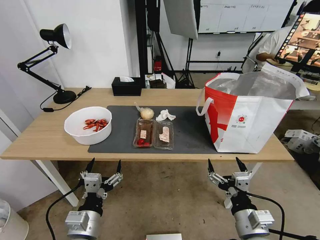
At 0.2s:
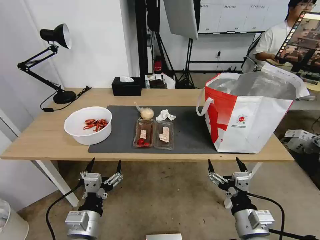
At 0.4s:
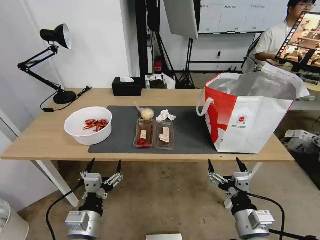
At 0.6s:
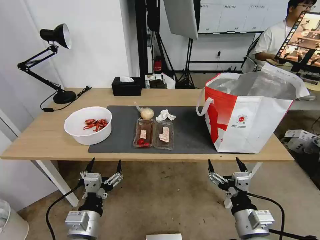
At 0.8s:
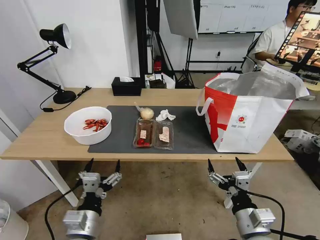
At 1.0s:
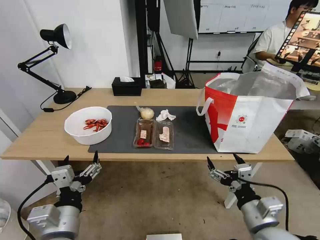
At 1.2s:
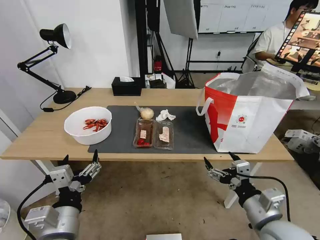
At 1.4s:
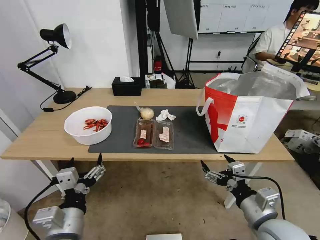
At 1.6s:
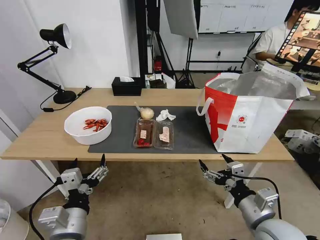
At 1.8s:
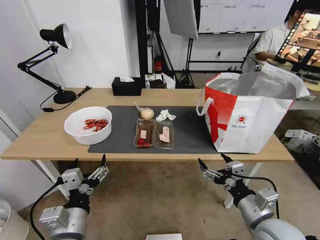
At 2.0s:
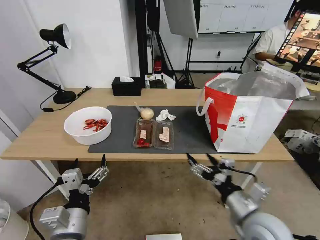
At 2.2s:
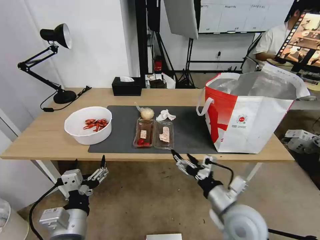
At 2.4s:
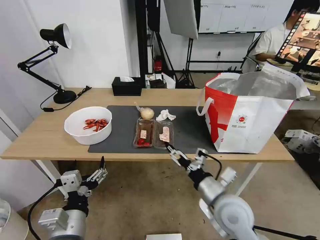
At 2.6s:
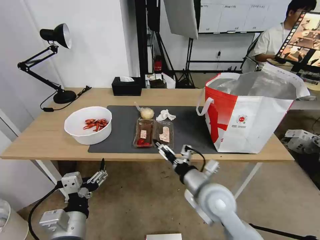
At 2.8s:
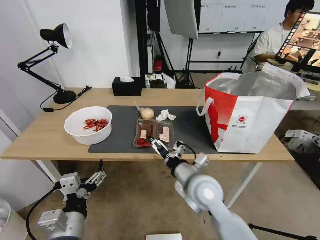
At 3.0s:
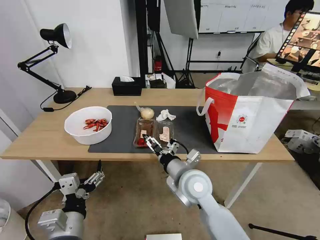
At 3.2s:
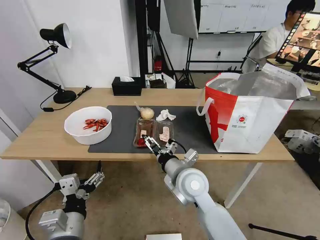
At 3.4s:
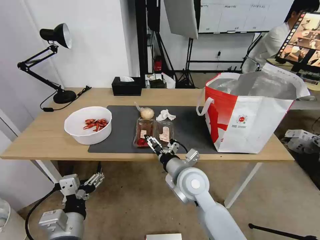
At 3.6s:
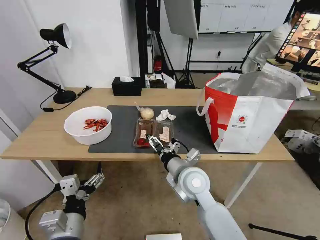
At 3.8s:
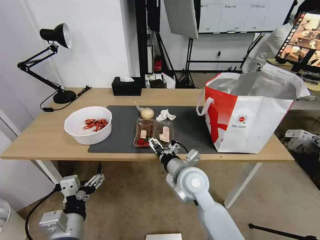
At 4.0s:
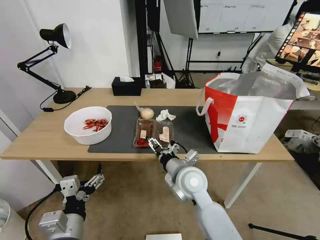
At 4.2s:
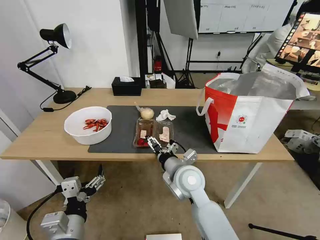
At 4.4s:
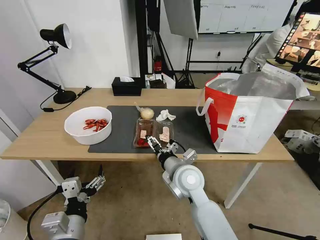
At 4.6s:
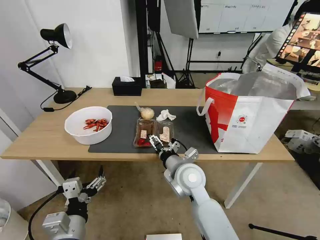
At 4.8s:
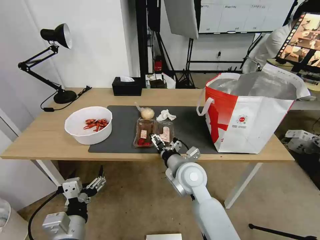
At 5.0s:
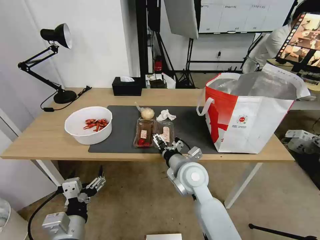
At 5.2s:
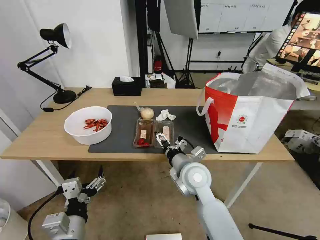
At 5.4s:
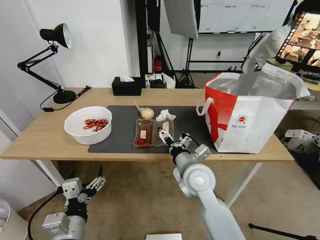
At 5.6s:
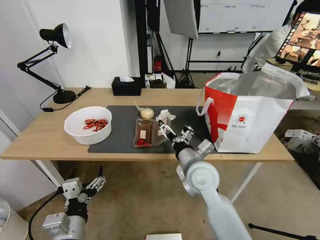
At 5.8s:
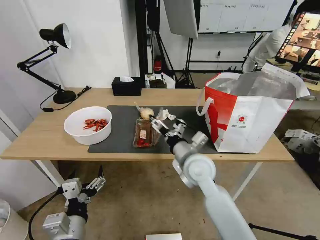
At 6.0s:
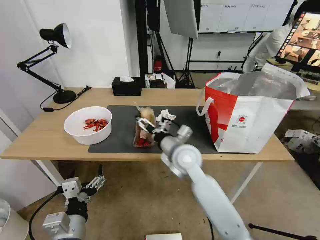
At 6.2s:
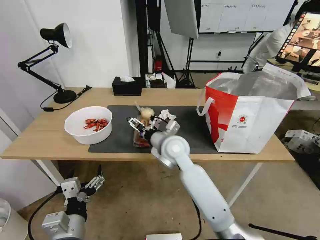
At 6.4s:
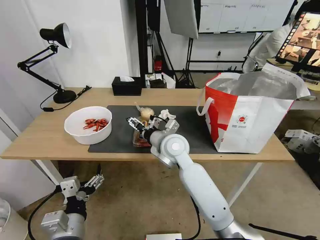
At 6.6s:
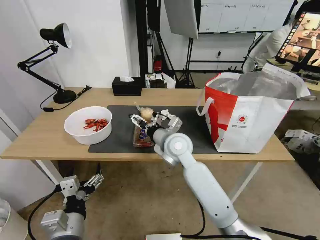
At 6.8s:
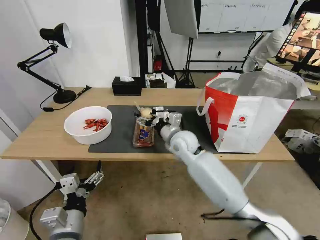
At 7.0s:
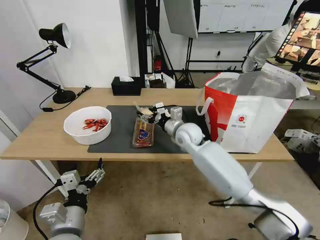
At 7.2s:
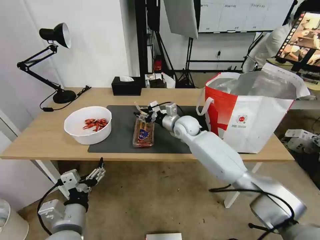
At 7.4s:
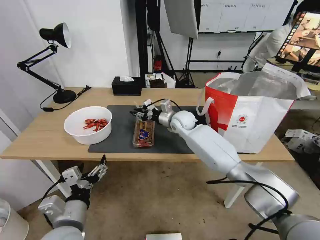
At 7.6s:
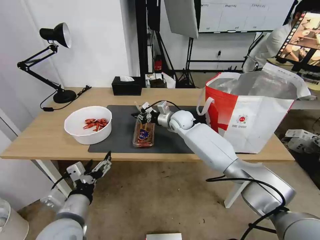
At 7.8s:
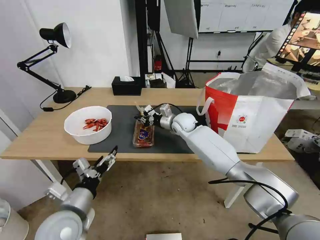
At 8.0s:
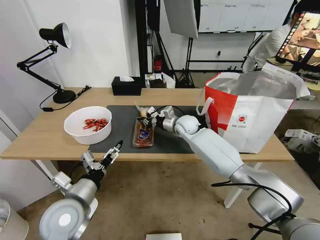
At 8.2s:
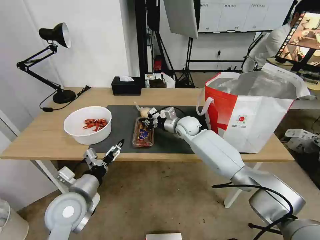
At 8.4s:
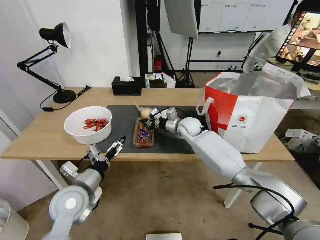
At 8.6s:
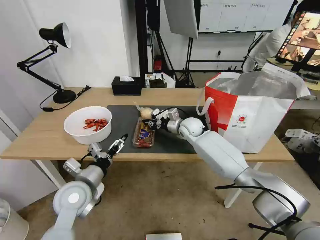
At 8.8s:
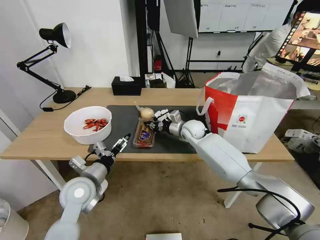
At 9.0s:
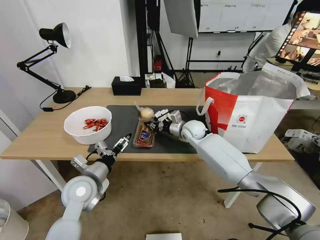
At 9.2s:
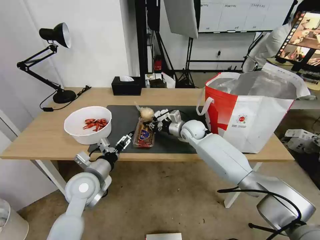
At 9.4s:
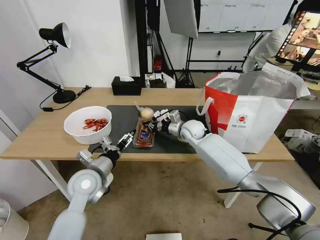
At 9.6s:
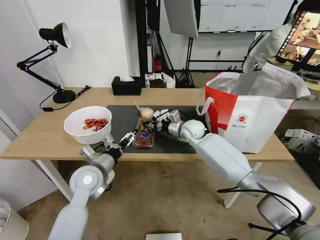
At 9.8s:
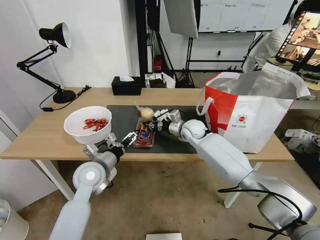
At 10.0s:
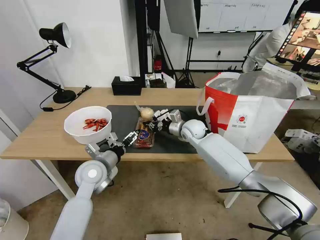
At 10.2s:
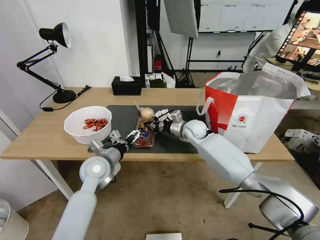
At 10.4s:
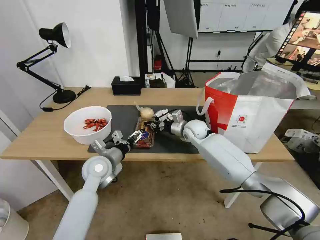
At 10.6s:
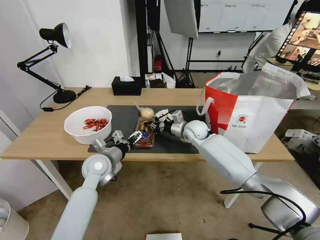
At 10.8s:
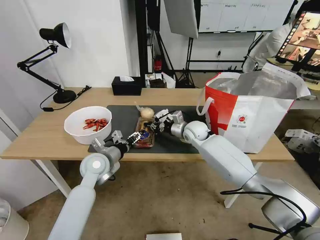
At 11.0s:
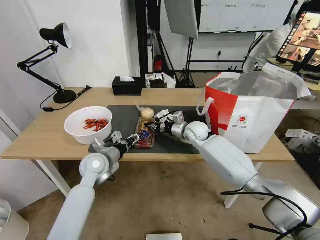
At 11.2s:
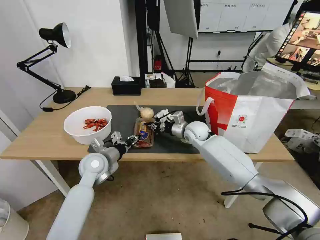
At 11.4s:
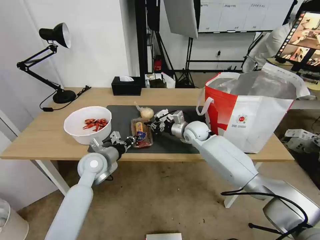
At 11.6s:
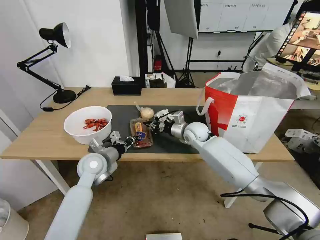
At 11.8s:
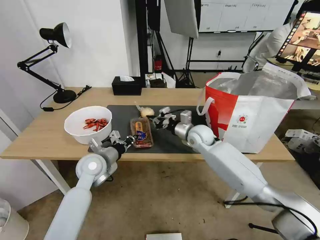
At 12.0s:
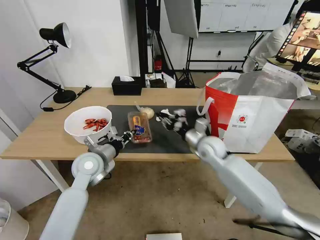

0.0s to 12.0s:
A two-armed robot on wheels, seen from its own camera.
Task of the whole recording: Pick up the trash from the table and place it into the takeout bag.
1.6s to 3.0s: The right gripper moves to the left and forward, some 20 cm.
3.0s to 4.4s: There are only small adjustments of the grippers.
4.4s to 6.0s: The right gripper travels forward by some 5 cm.
6.0s to 7.6s: The right gripper shifts approximately 20 cm forward, and closes. The left gripper ends up approximately 5 cm from where it was.
7.6s to 9.0s: The left gripper shifts some 10 cm forward. The right gripper goes roughly 5 cm to the right.
9.0s to 10.4s: The left gripper goes about 10 cm forward.
10.4s to 12.0s: The right gripper shifts some 15 cm backward and to the right; the left gripper closes its fingers.

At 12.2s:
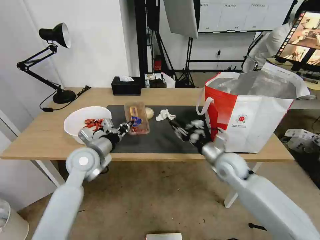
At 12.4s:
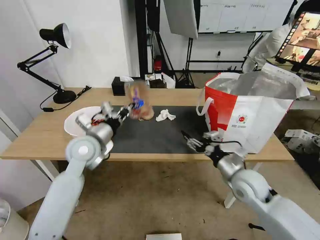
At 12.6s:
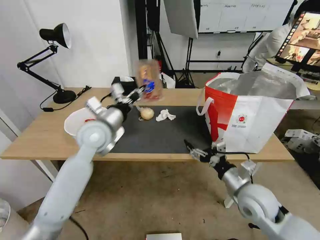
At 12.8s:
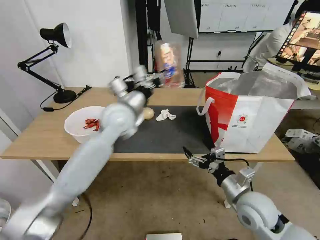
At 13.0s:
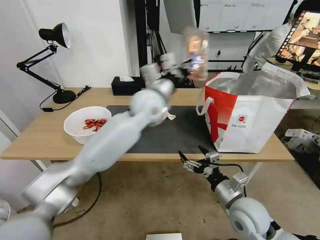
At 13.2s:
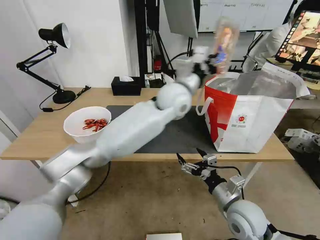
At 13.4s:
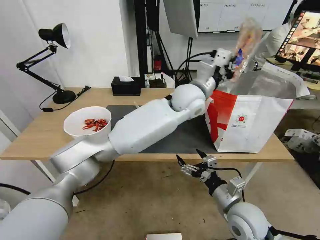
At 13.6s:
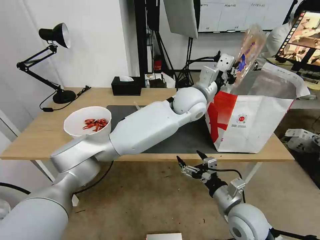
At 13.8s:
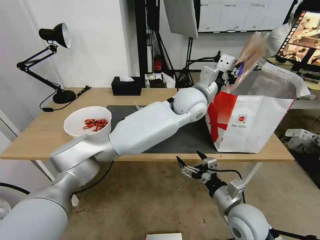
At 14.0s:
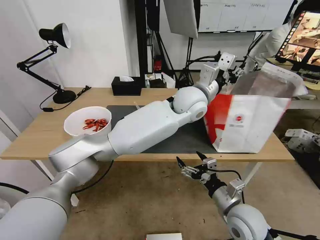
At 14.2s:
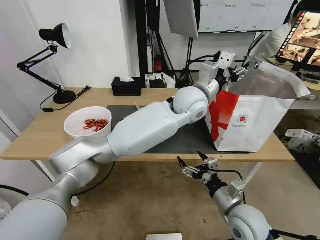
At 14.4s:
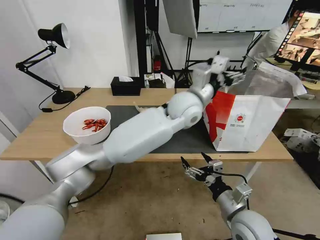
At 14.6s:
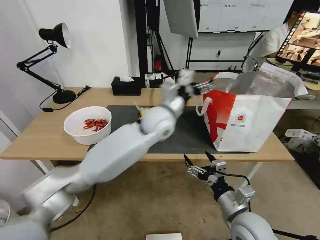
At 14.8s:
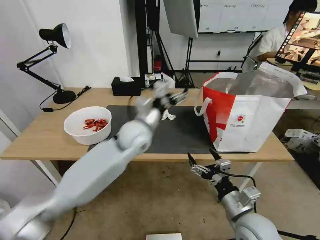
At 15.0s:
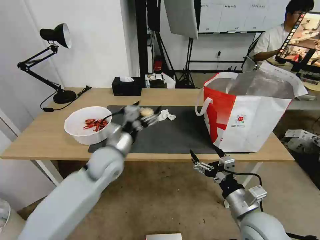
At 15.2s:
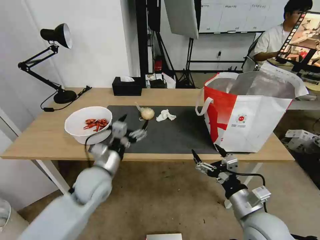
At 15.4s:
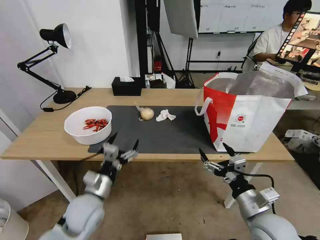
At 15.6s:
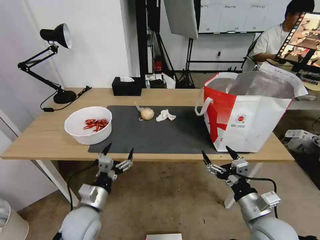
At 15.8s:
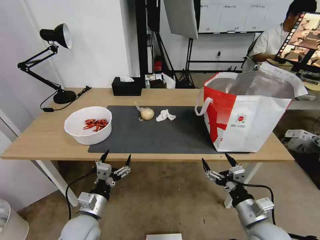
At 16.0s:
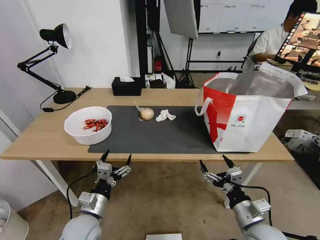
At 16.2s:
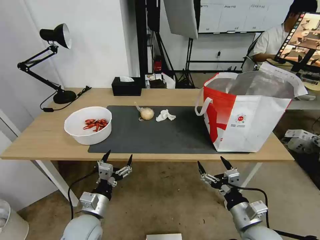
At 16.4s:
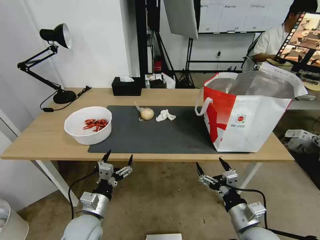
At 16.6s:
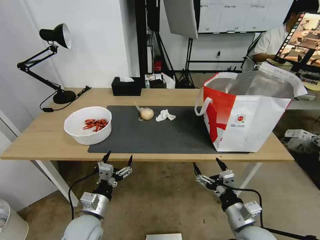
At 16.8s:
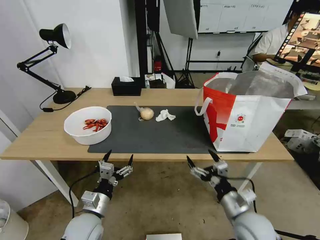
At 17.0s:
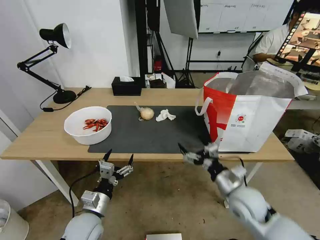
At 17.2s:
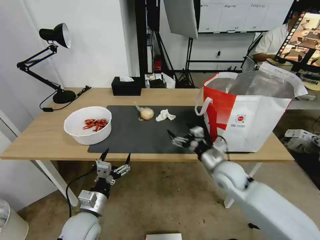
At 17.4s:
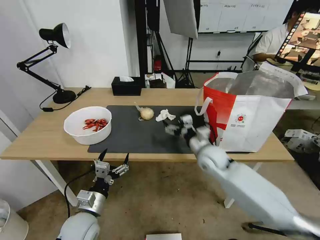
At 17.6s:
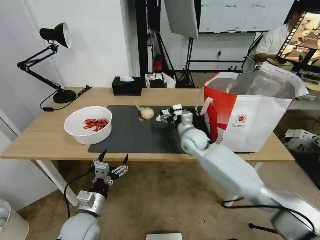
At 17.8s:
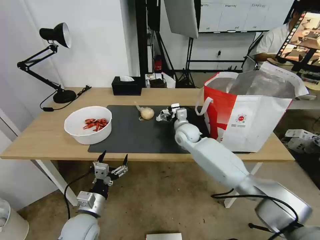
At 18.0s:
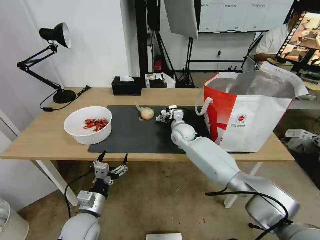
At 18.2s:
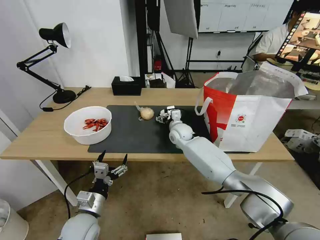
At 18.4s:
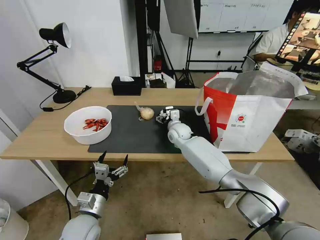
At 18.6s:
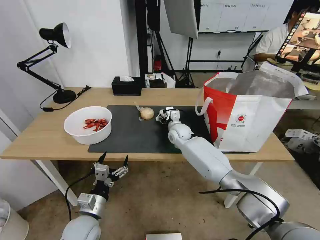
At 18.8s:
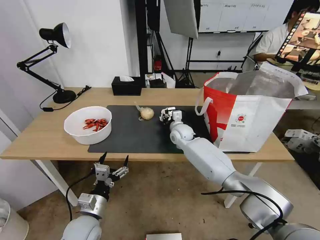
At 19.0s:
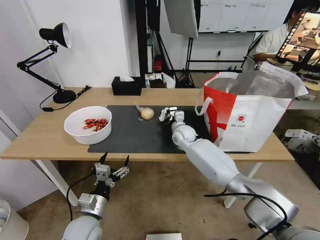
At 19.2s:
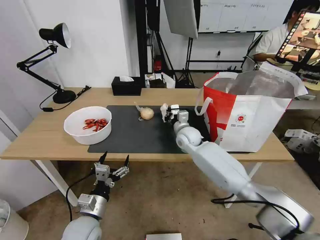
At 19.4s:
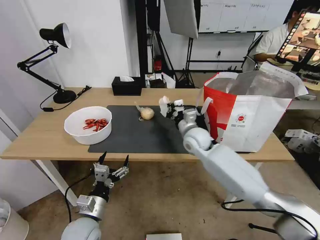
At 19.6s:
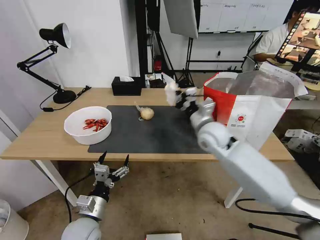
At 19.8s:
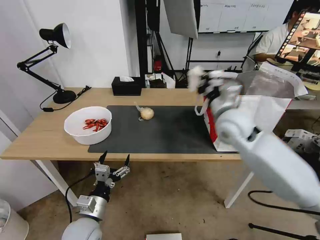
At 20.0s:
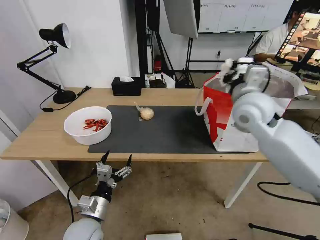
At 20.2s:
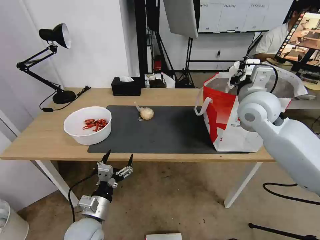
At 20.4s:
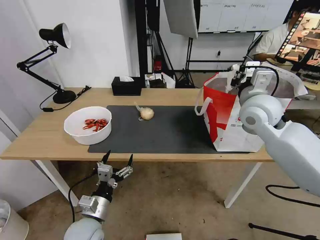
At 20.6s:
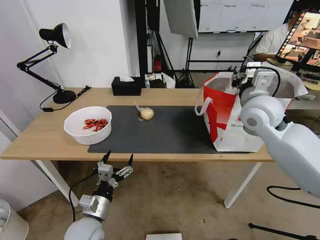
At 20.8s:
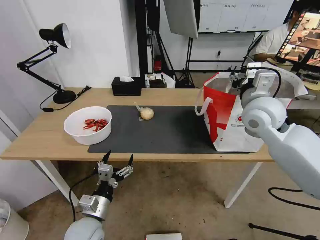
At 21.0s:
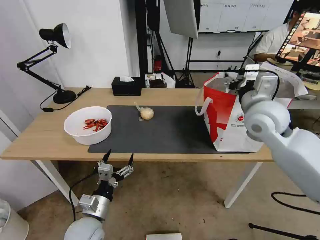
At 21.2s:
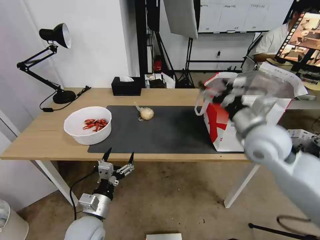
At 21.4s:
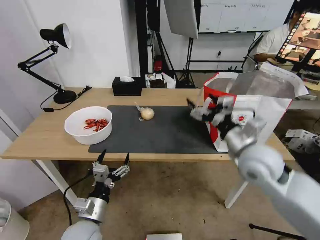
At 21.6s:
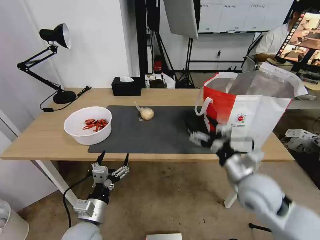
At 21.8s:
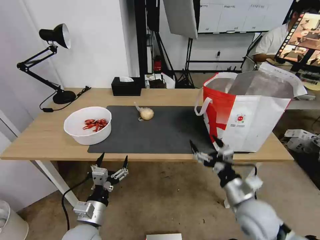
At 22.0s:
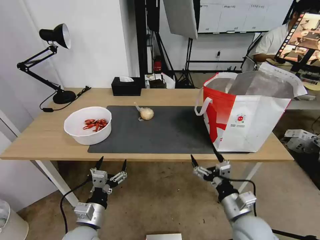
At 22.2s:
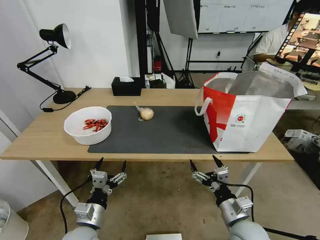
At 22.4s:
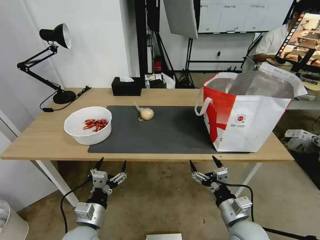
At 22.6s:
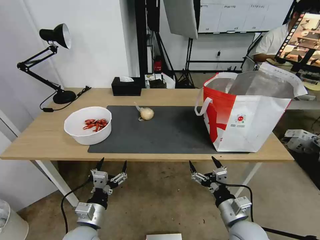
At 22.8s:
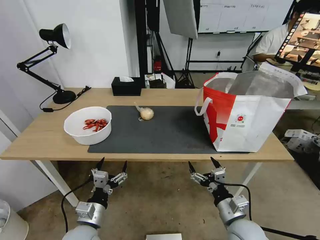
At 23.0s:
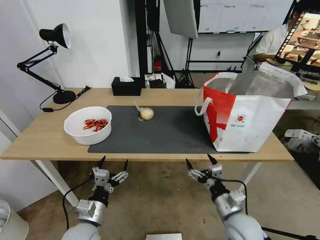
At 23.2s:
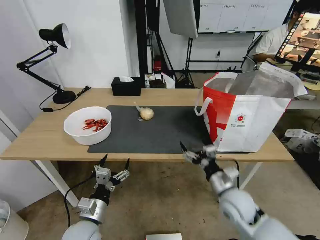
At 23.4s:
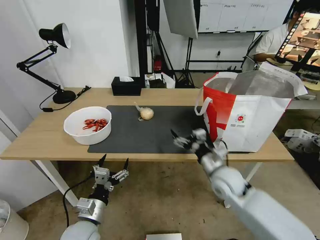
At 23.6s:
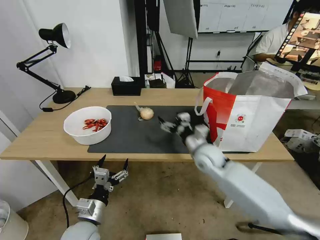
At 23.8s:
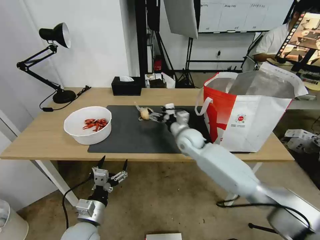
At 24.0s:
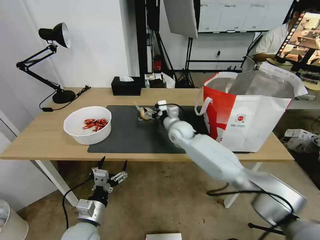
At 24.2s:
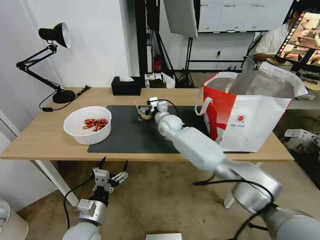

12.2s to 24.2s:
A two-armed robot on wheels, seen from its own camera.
Task of the whole recording: Pick up the trash from the table and place it into the takeout bag.
12.2s to 13.8s: The left gripper moves to the right and upward, approximately 35 cm. Meanwhile the right gripper travels backward by some 15 cm, and opens.
13.8s to 15.2s: The left gripper moves to the left, backward and downward, approximately 35 cm, and opens.
15.2s to 16.6s: The left gripper moves downward and backward, some 15 cm; the right gripper travels downward by approximately 5 cm.
16.6s to 18.2s: The right gripper travels forward and to the left by about 40 cm.
18.2s to 19.8s: The right gripper goes roughly 25 cm upward, backward and to the right, and closes.
19.8s to 21.2s: The right gripper travels backward and to the right by some 10 cm, and opens up.
21.2s to 22.6s: The right gripper is displaced downward and backward by about 30 cm.
22.6s to 24.2s: The right gripper shifts approximately 40 cm forward and to the left.
